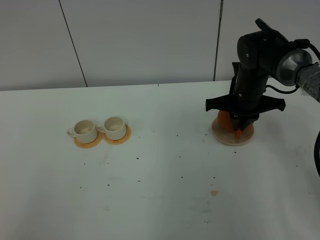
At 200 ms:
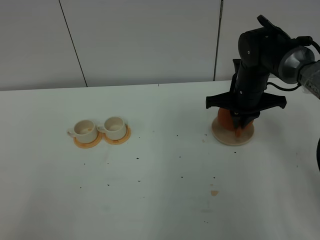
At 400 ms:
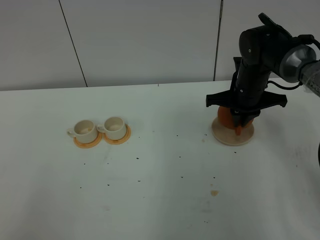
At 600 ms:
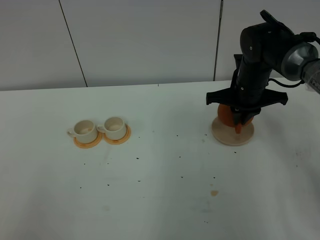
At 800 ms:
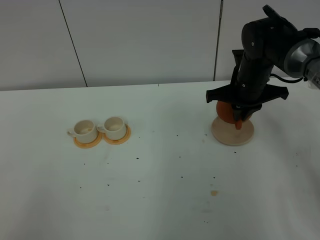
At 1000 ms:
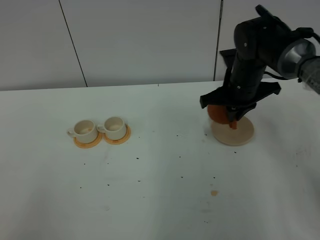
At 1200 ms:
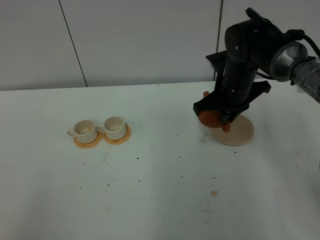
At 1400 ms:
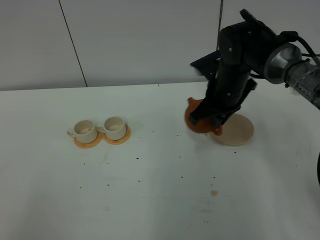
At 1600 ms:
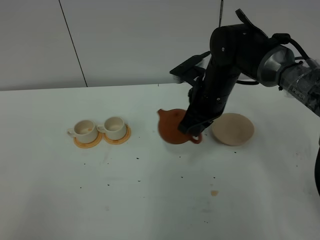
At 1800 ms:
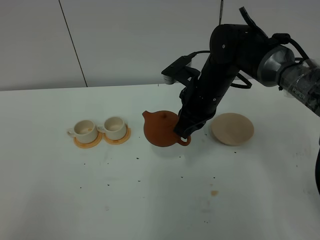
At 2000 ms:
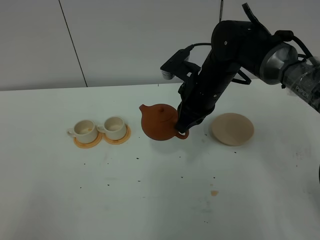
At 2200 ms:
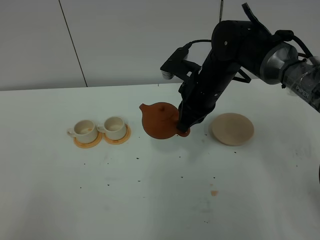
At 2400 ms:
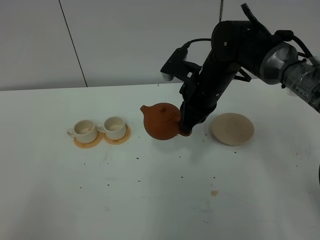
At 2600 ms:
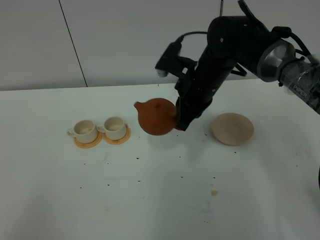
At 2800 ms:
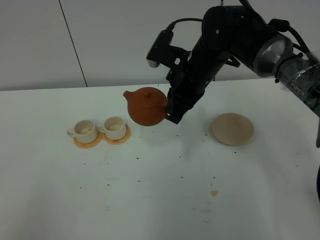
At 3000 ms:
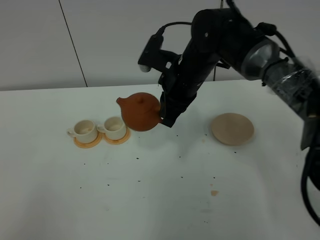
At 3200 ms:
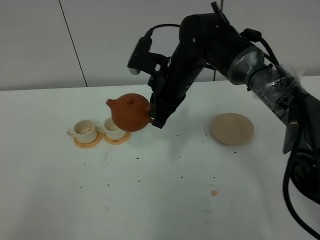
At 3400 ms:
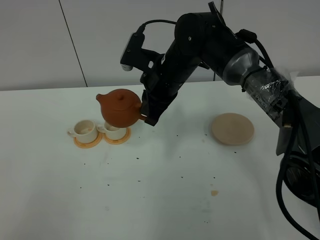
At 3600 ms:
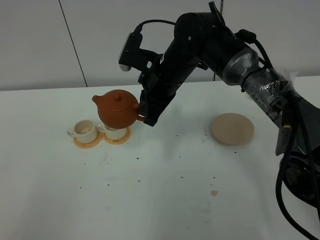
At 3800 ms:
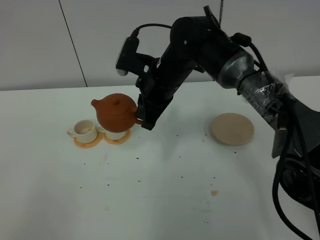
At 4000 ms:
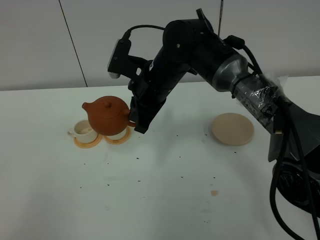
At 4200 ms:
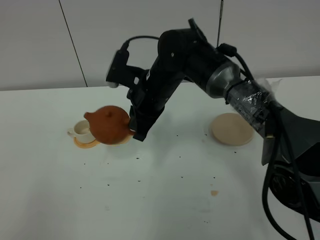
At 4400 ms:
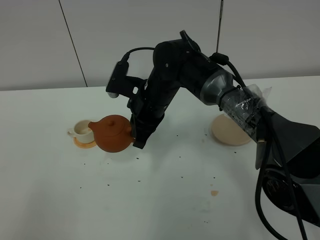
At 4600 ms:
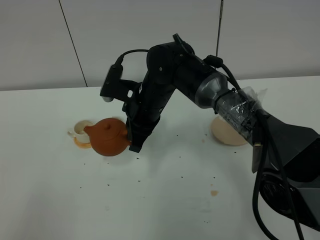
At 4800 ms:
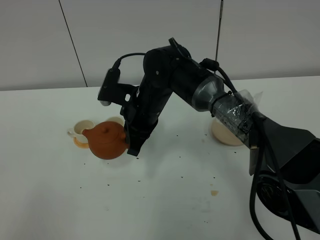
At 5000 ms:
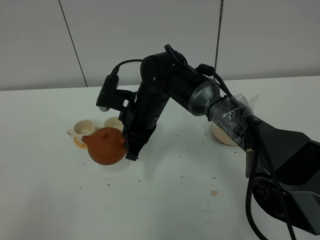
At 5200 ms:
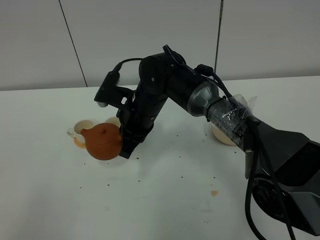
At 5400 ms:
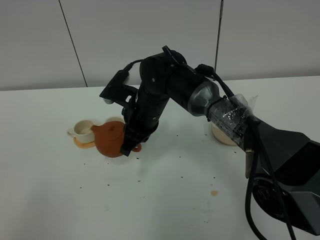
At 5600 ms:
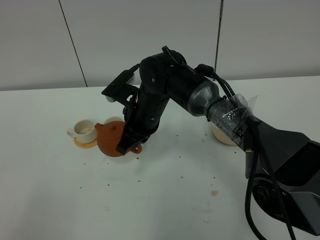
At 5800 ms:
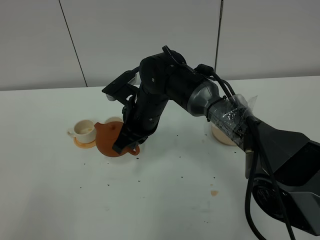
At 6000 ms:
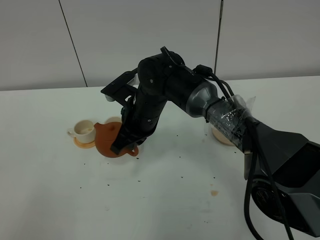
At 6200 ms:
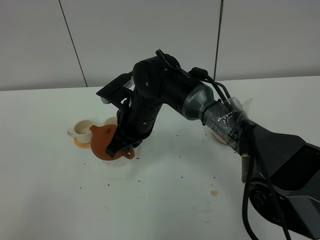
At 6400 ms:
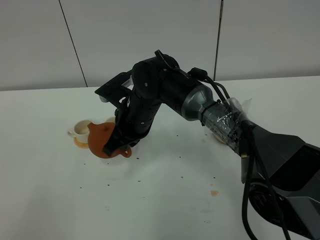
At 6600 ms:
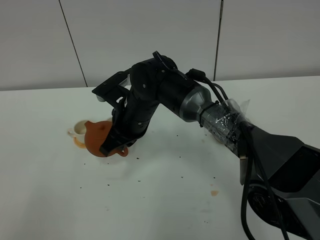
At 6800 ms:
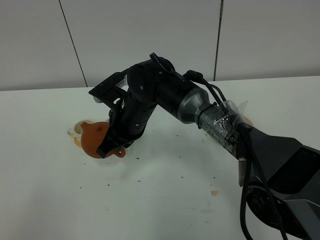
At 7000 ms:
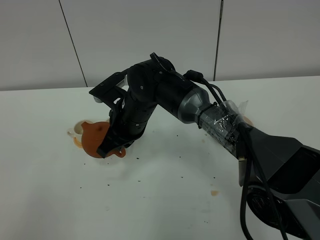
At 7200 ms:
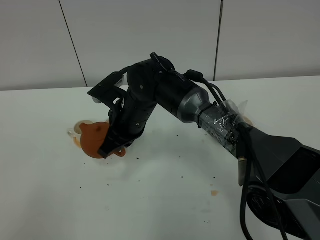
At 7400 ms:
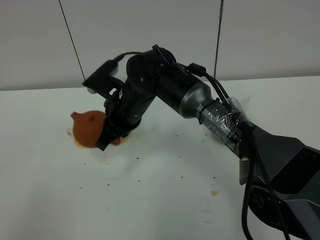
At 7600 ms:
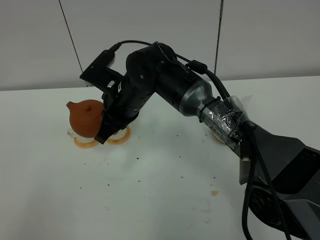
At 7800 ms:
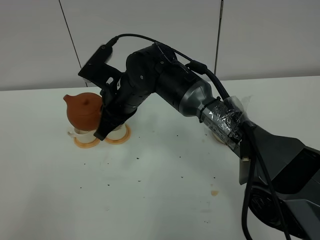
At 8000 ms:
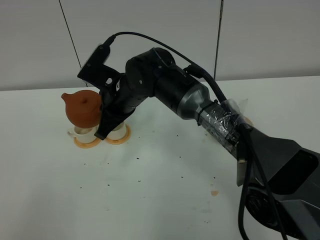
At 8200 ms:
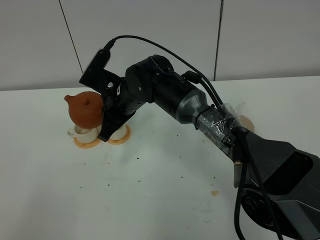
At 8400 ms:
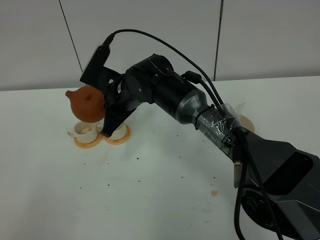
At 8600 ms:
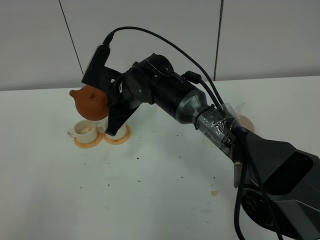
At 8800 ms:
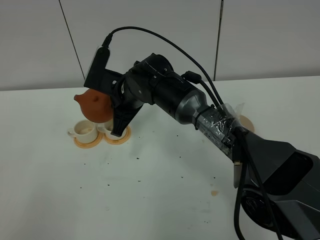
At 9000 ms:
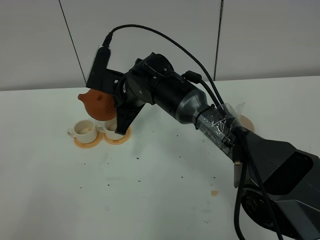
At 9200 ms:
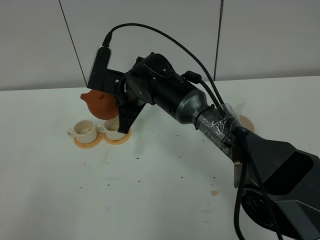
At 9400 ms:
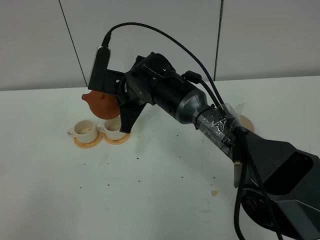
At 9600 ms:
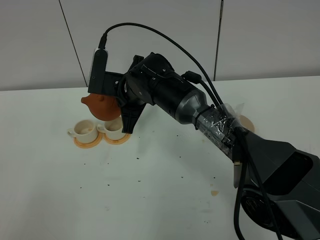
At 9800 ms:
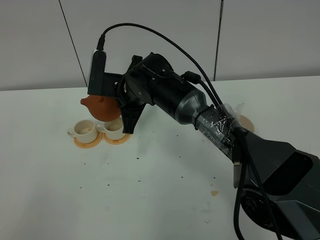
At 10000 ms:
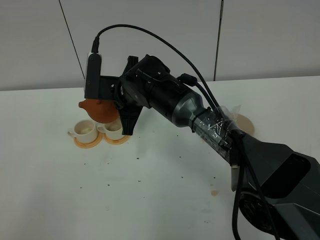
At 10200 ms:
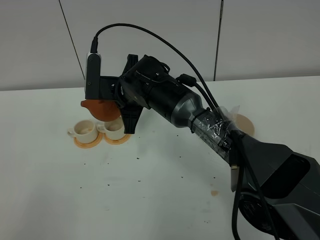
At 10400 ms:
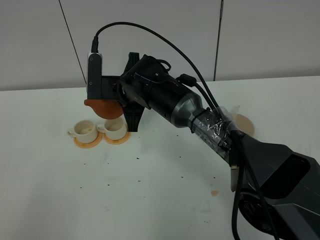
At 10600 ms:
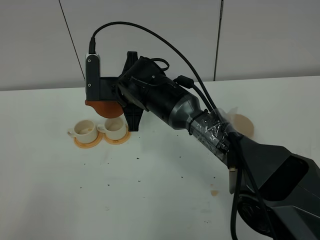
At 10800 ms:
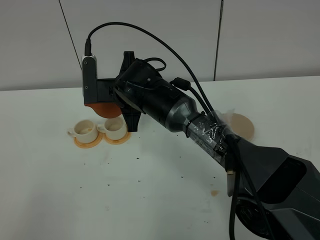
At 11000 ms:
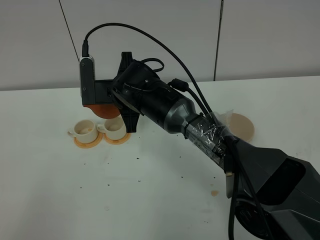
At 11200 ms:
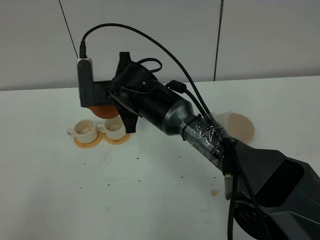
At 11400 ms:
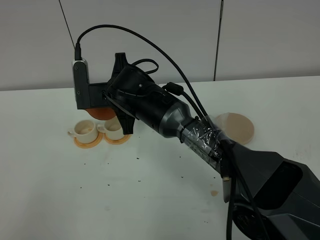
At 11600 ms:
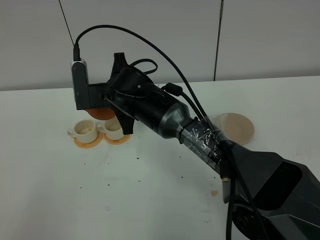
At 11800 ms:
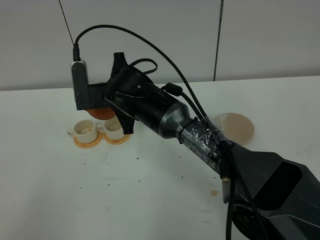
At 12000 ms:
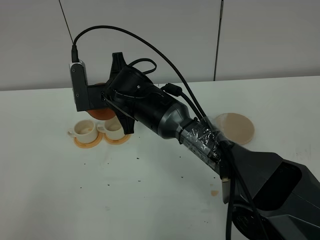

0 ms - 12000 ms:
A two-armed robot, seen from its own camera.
Task of the whole recording: grasp the brown teapot and pour the tea into the two white teacups one by one, put the brown teapot back in its original place.
0 ms - 1600 ms: The right gripper is displaced to the left by about 10 cm.
1600 ms - 3000 ms: The right gripper changes place by roughly 5 cm.
3000 ms - 4400 ms: The right gripper moves to the left, some 5 cm.
6000 ms - 7600 ms: The grippers stay close to where they were, moving slightly.
9000 ms - 10400 ms: The grippers move only a little.
10400 ms - 12000 ms: There are only small adjustments of the grippers.

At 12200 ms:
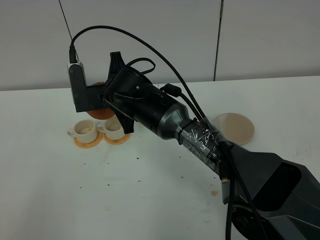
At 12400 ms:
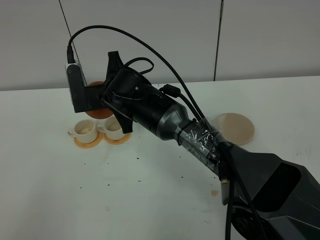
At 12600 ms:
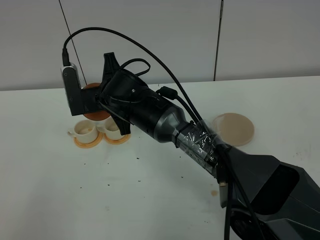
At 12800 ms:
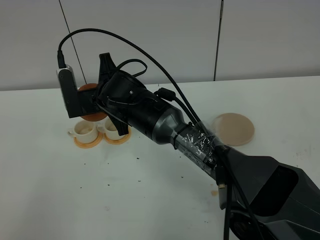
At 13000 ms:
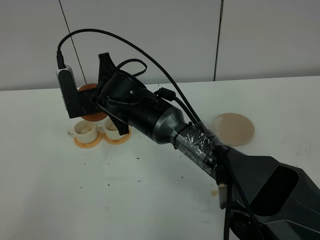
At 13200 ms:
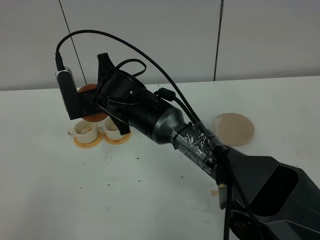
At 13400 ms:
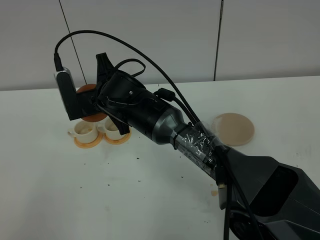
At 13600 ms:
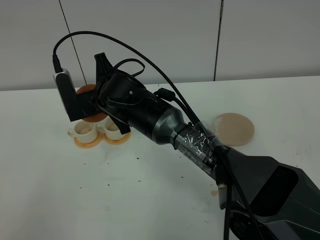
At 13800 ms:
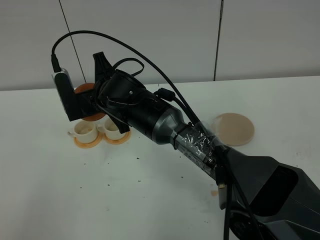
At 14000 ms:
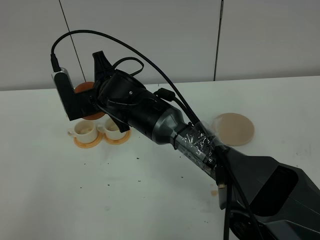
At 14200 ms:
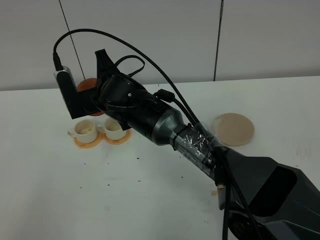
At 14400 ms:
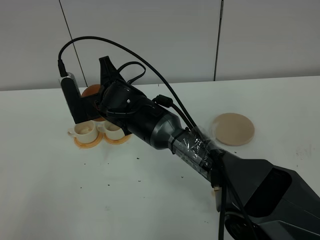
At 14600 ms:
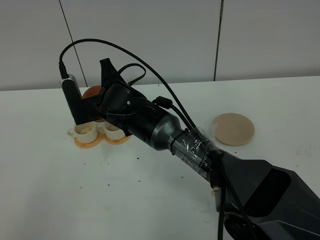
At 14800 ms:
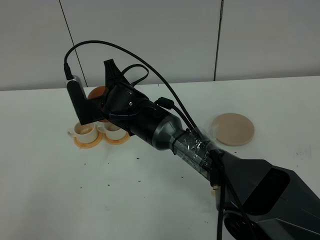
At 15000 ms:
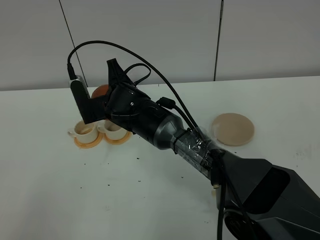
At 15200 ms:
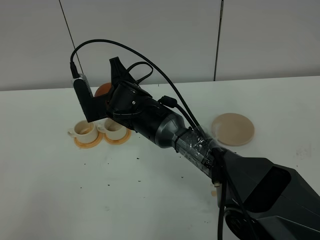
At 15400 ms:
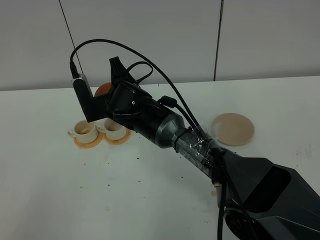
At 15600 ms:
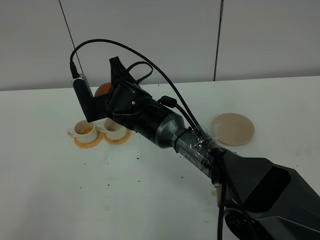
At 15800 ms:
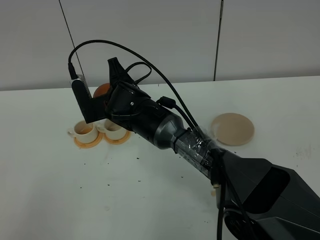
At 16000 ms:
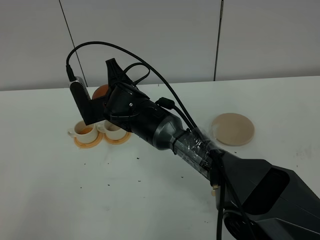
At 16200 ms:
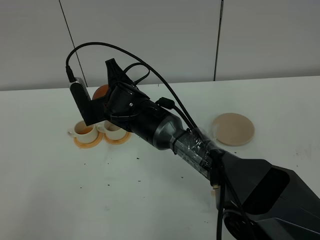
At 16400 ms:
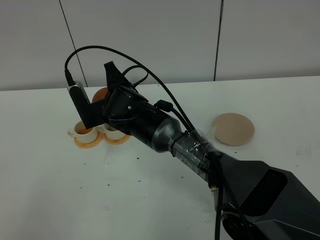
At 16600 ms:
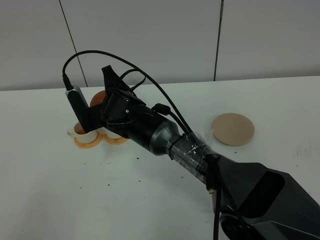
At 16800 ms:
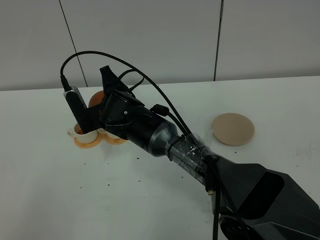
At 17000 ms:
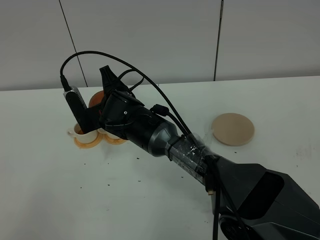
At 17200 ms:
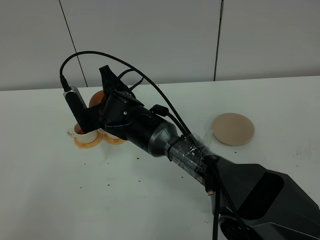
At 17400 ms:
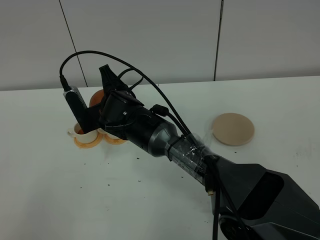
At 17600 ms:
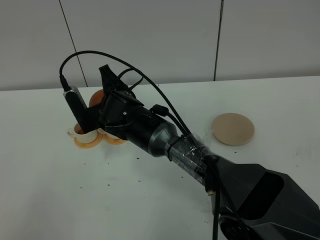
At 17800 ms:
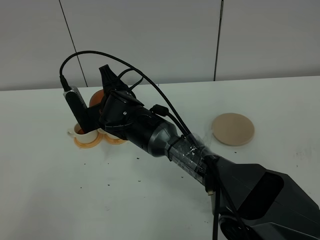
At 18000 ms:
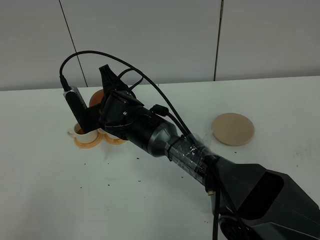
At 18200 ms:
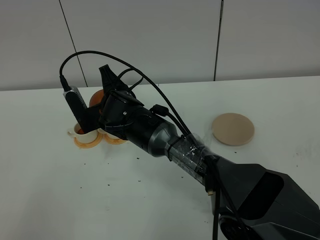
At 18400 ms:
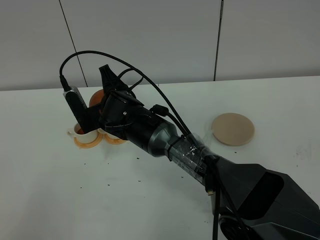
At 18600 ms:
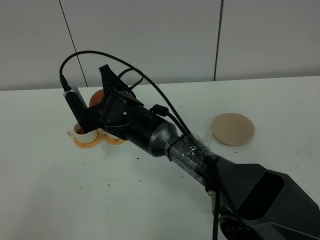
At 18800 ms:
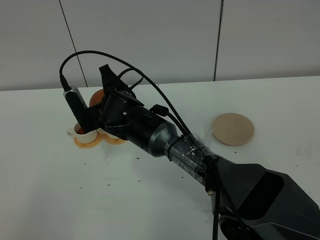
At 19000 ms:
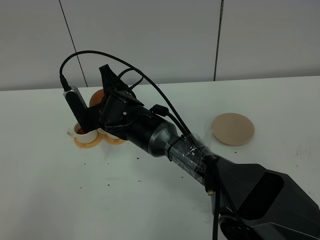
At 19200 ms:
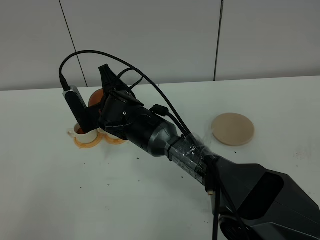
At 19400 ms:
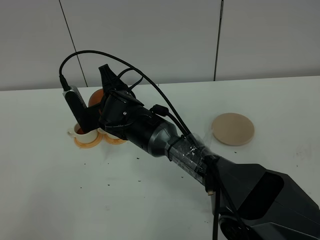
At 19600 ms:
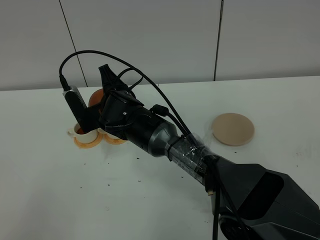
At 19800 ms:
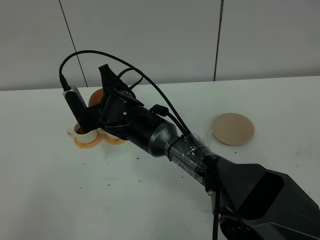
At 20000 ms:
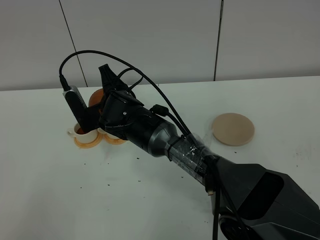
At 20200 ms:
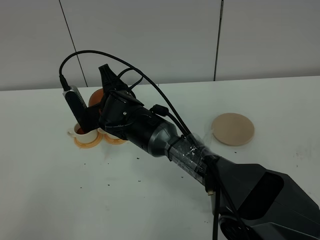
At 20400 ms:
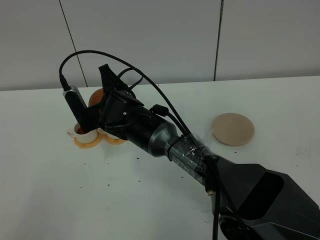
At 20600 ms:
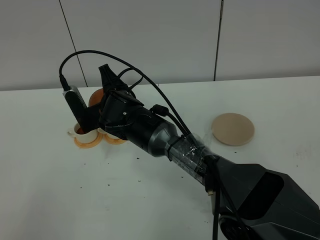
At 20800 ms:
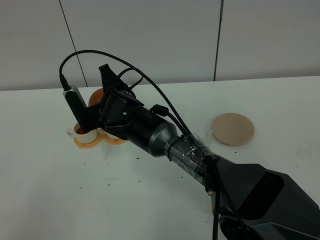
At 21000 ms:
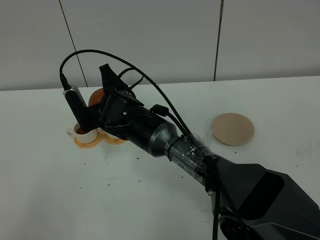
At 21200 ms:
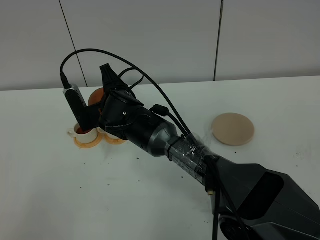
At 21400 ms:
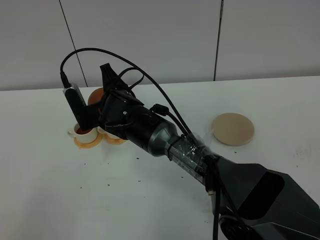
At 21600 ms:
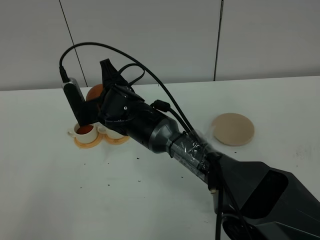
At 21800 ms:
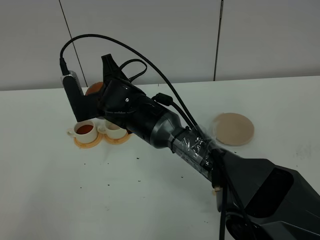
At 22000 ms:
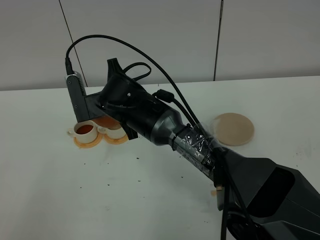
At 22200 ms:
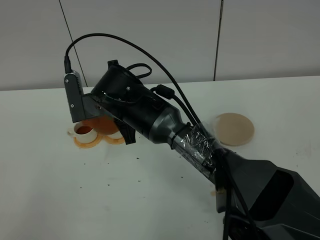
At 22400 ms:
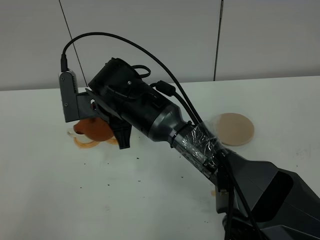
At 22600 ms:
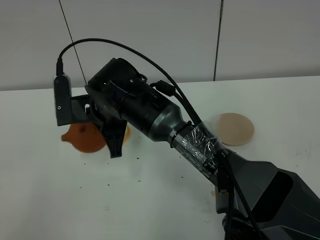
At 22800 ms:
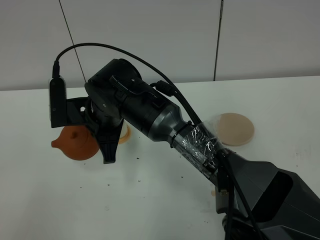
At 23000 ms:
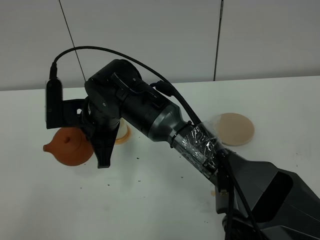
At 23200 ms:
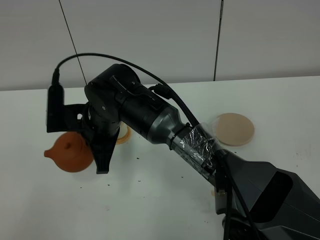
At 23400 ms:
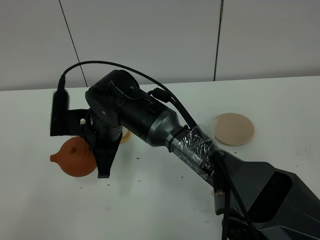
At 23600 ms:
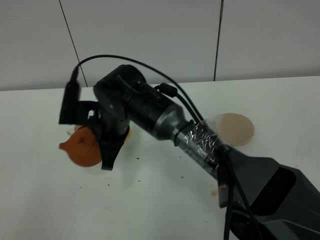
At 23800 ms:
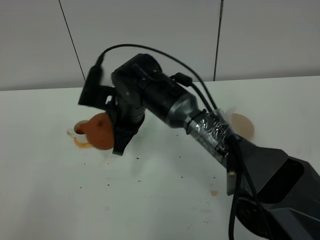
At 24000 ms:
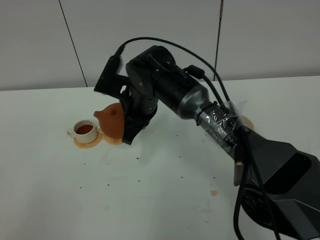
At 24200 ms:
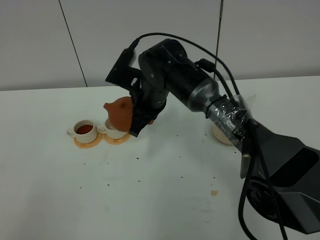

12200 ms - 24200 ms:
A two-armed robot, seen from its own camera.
Task of the whole recording: grasp the brown teapot and pour the tea into the two white teacups one by one, put the brown teapot back in its original place.
12200 ms - 16600 ms: The grippers make only small movements.
16600 ms - 21200 ms: The two grippers keep their place.
21200 ms - 22600 ms: The right gripper goes roughly 10 cm upward and backward.
22600 ms - 24200 ms: The right gripper is displaced to the right and forward by about 10 cm.
